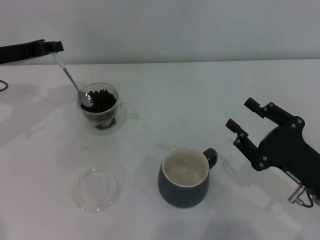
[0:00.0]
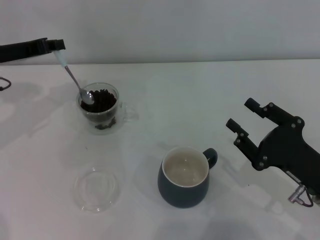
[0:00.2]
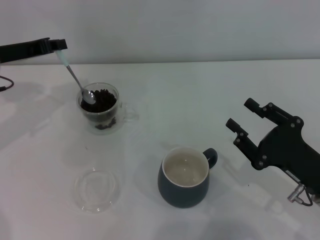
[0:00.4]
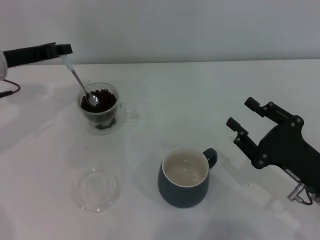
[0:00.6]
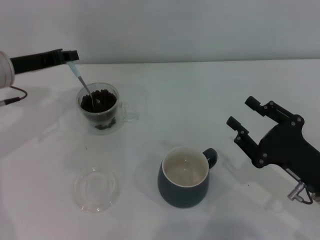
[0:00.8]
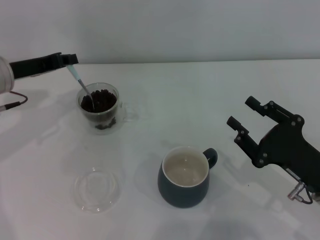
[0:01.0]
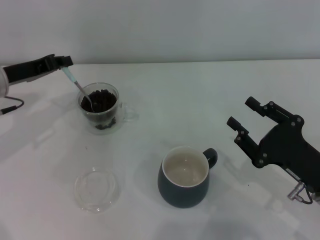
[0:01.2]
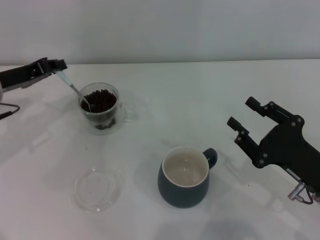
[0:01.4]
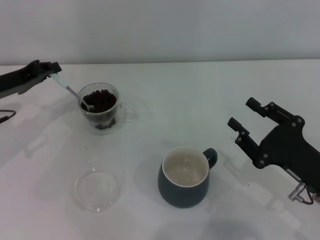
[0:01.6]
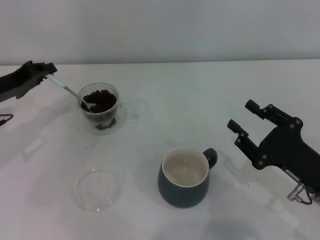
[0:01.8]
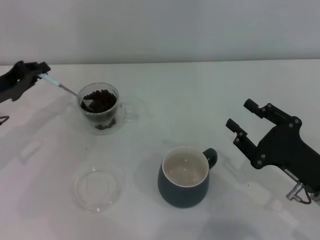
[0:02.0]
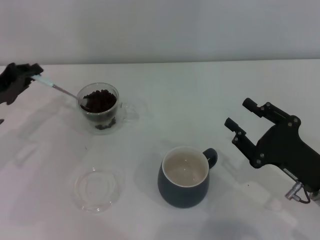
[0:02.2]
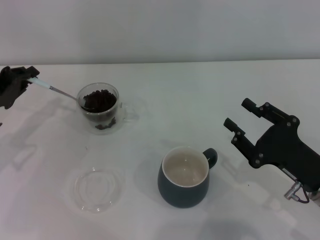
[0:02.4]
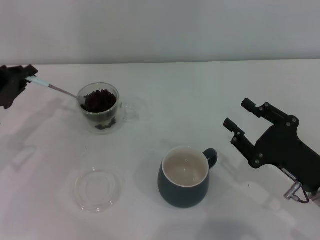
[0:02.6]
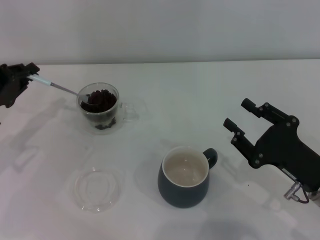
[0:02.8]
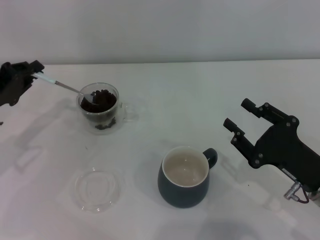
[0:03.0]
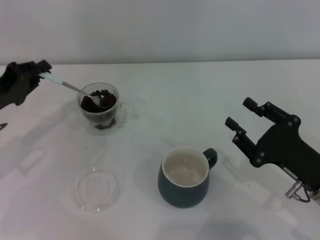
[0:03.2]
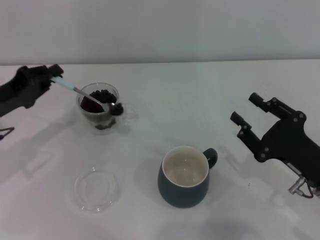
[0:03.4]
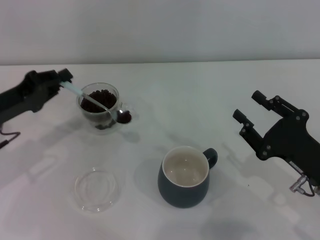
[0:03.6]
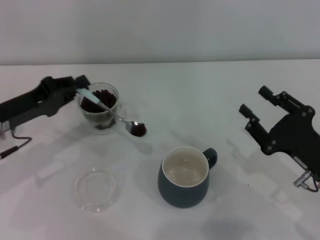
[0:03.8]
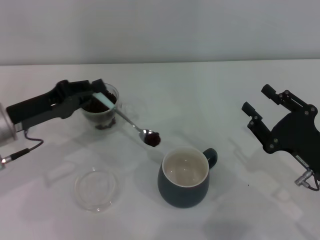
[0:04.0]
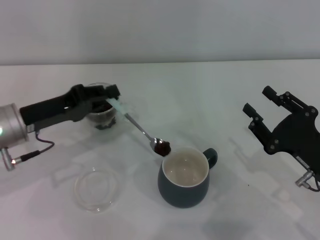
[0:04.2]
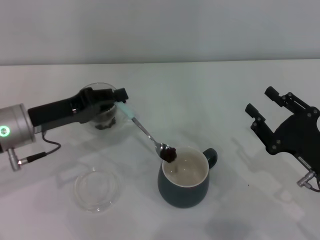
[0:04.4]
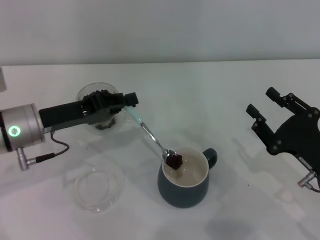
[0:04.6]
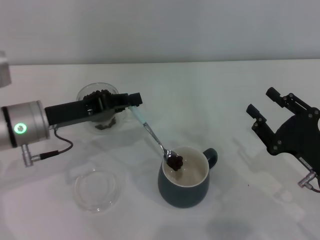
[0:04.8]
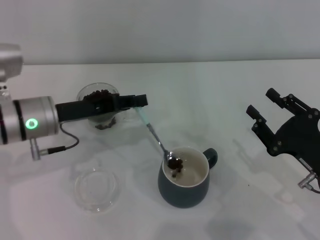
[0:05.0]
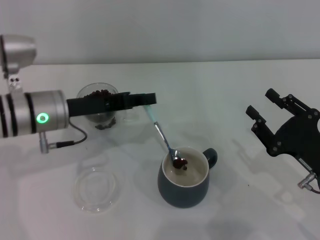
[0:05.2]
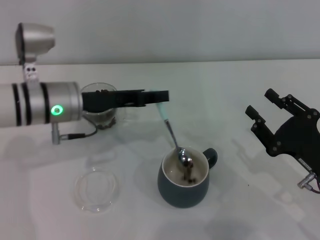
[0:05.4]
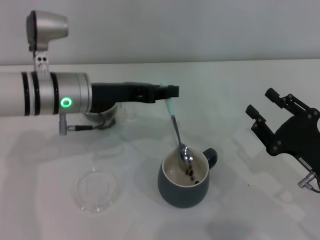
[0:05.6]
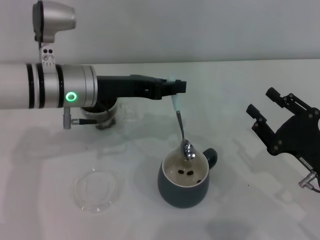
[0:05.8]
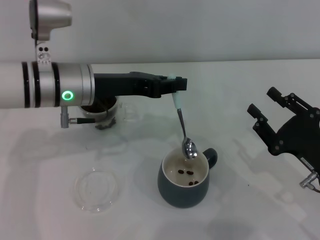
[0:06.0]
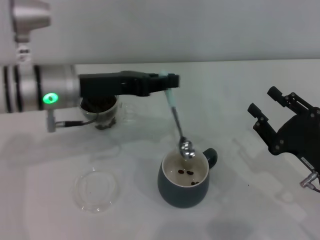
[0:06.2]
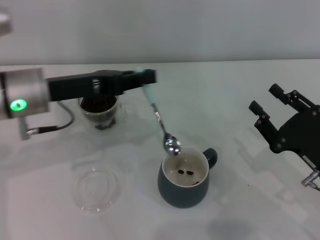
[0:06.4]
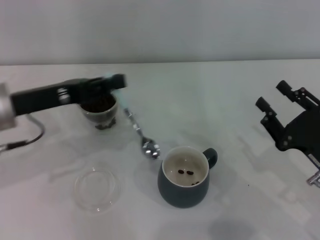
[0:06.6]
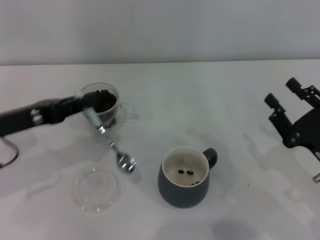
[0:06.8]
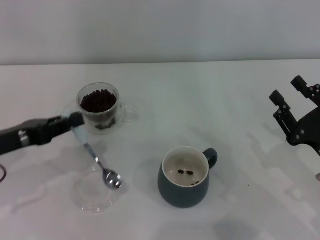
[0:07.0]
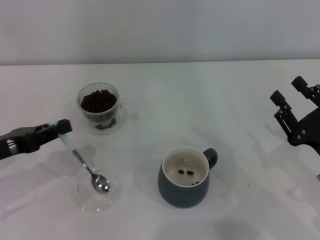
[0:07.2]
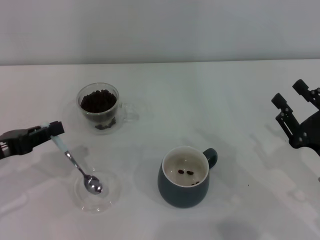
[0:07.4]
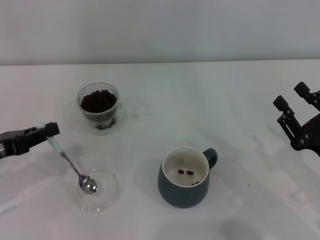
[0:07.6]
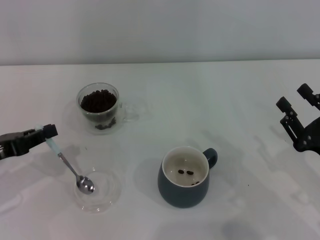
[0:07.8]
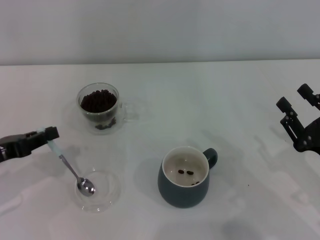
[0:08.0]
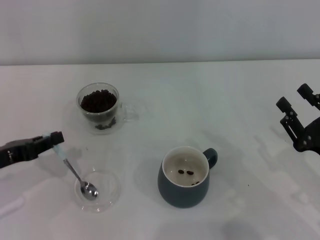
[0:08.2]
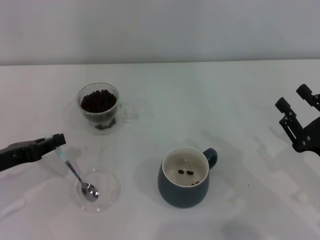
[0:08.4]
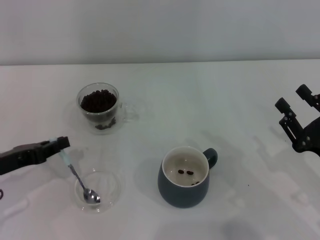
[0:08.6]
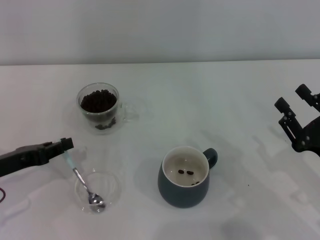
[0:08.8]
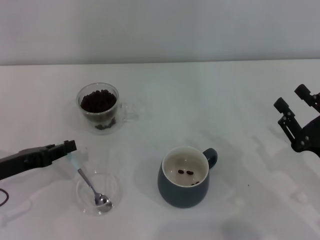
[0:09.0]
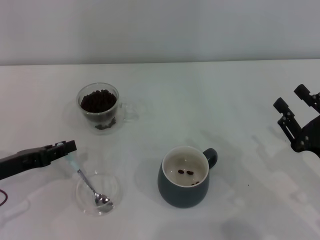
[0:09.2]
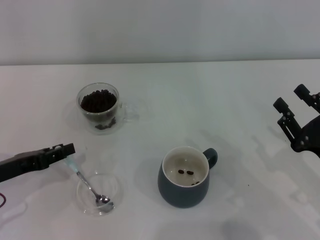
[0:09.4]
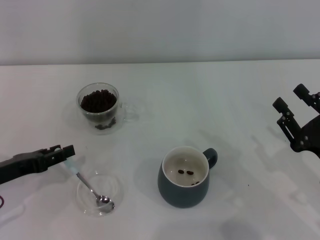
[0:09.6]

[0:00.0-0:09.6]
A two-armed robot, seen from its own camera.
Task of the whole recording: Use a blue spoon to take out the coffee beans from the glass and pour them into the gray cup.
0:00.0 to 0:01.6: The left gripper moves approximately 5 cm.
0:03.2 to 0:04.8: The left gripper shifts roughly 10 cm to the right.
0:04.8 to 0:06.4: The left gripper goes some 5 cm upward.
0:06.4 to 0:08.0: The left gripper heads to the left, downward and backward, covering approximately 15 cm.
0:08.0 to 0:09.6: The left gripper opens up.

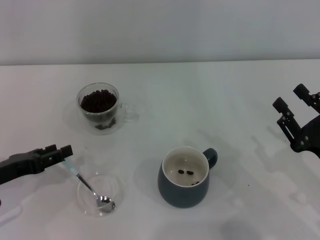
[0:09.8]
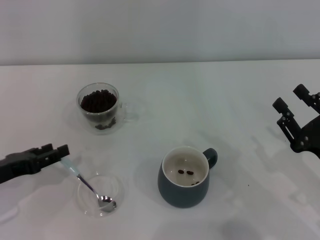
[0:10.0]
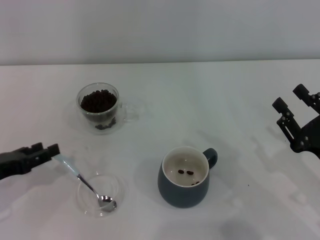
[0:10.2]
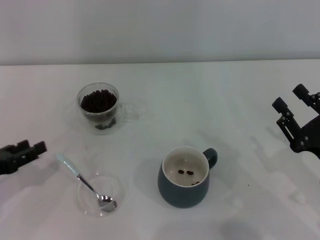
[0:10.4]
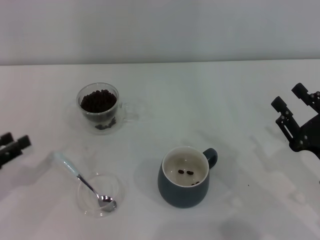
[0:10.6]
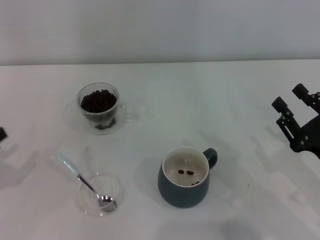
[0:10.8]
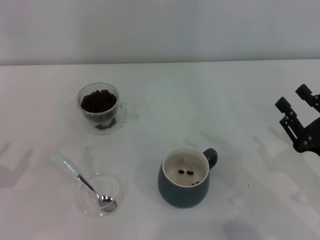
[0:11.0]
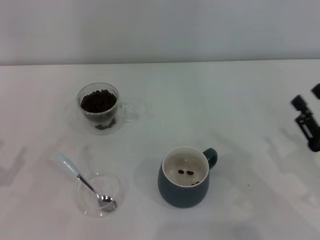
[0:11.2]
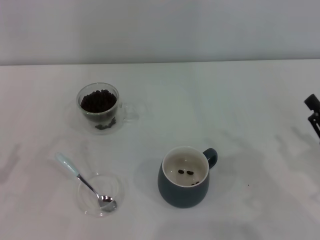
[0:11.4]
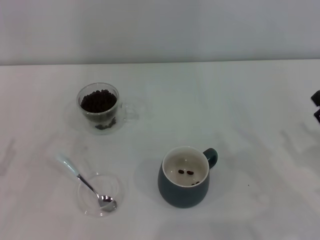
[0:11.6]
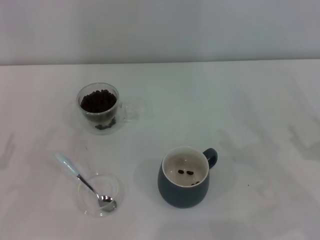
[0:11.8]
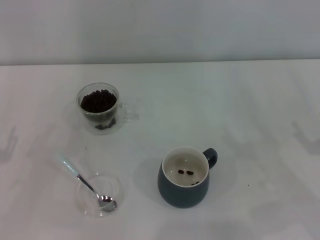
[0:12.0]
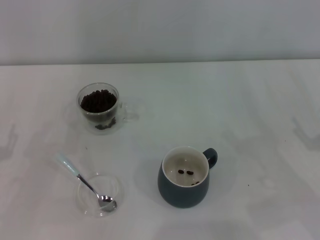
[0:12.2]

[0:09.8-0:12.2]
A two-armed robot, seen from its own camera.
Task of the whole recording: Use a blue spoon to take out the coffee beans from the glass and pour them into the gray cup.
0:09.8 to 0:11.0: The left gripper moves backward and to the left, about 10 cm.
0:11.0 to 0:12.2: The right gripper heads to the right, covering approximately 5 cm, and opens up.
